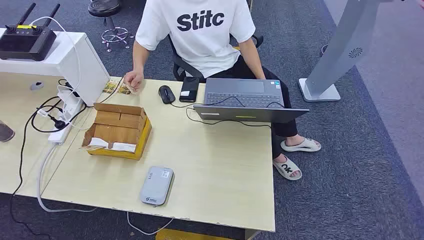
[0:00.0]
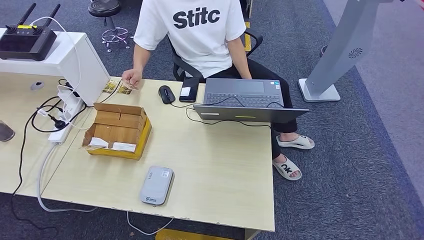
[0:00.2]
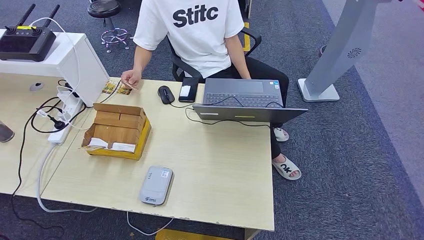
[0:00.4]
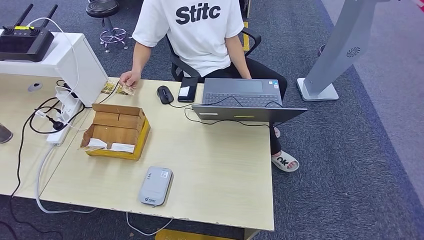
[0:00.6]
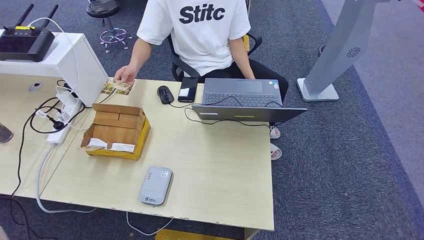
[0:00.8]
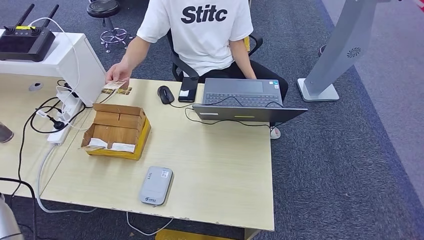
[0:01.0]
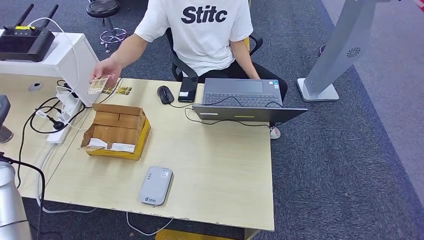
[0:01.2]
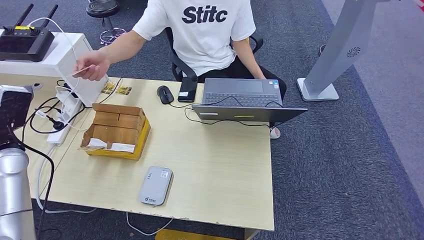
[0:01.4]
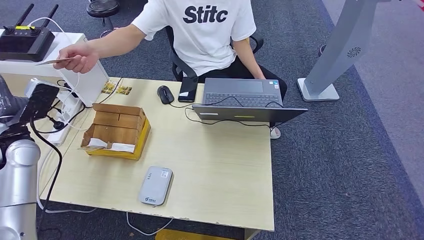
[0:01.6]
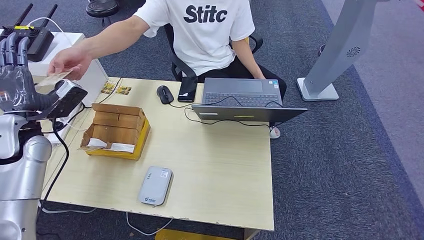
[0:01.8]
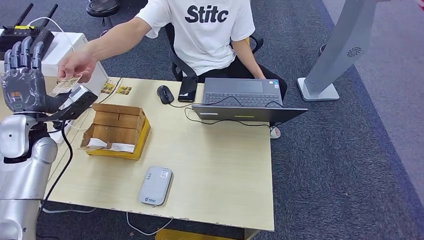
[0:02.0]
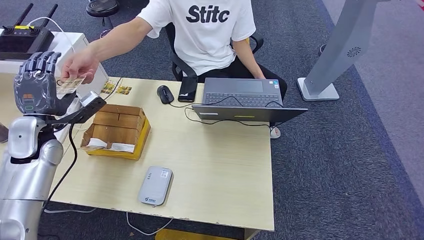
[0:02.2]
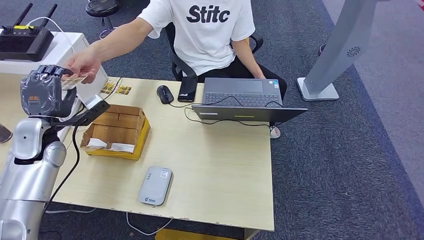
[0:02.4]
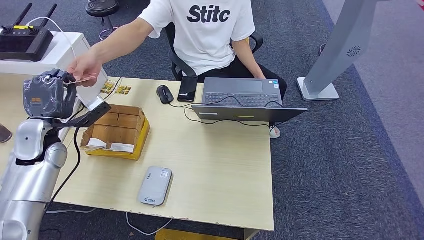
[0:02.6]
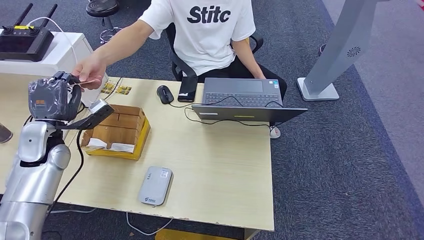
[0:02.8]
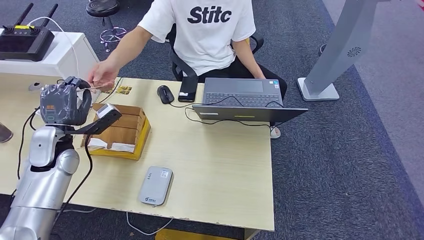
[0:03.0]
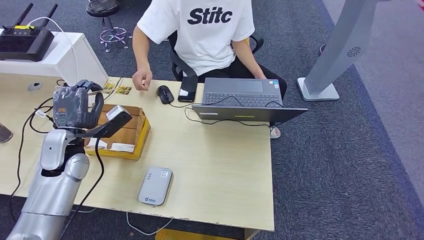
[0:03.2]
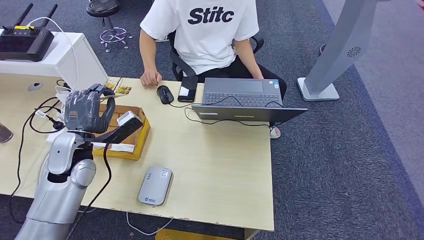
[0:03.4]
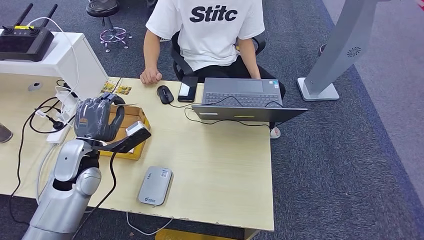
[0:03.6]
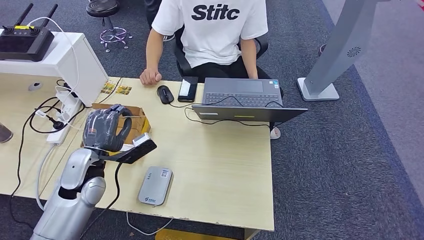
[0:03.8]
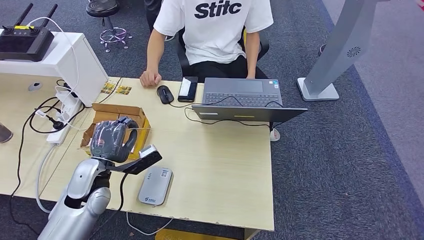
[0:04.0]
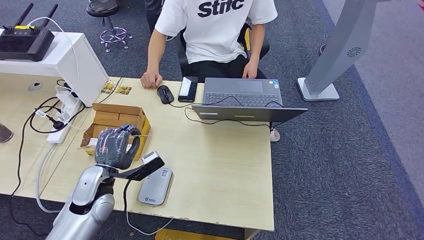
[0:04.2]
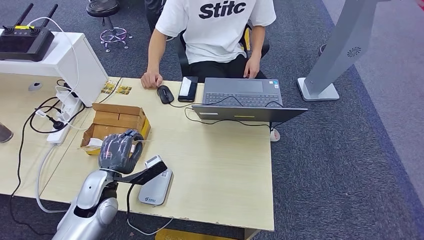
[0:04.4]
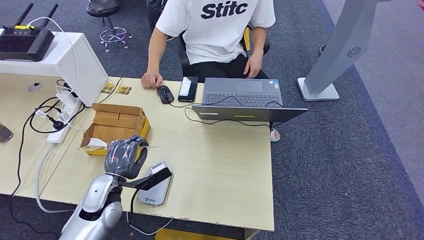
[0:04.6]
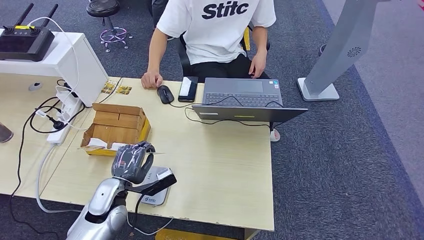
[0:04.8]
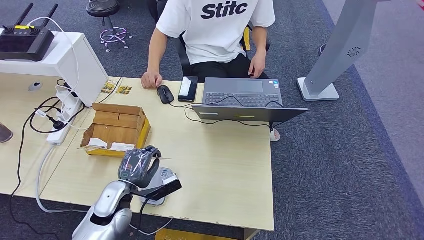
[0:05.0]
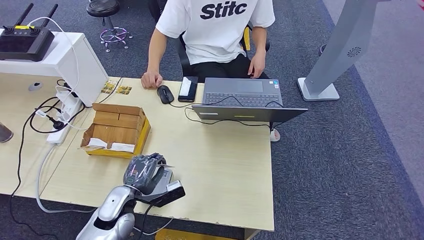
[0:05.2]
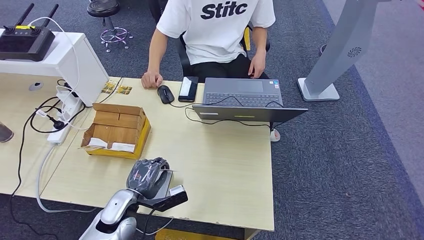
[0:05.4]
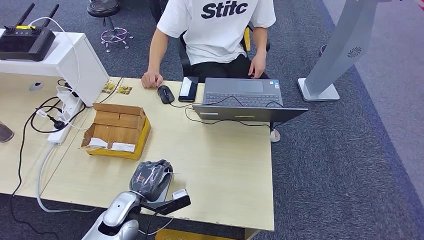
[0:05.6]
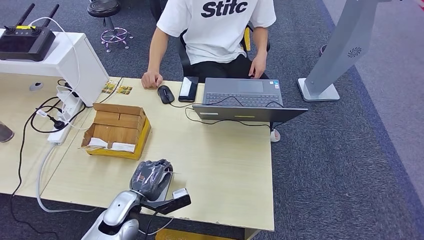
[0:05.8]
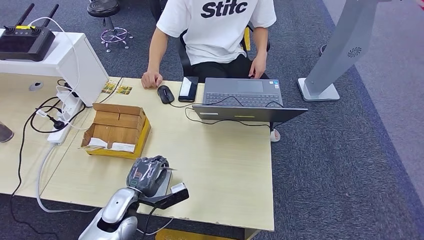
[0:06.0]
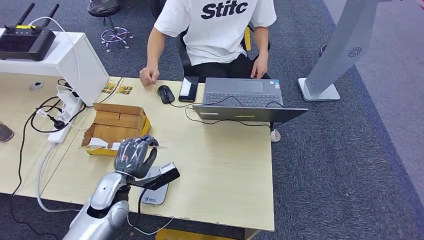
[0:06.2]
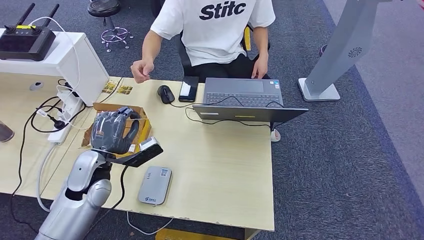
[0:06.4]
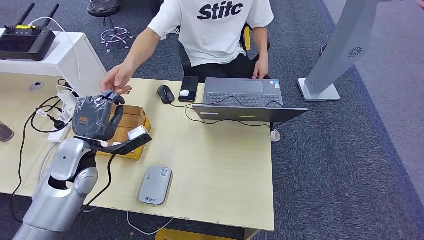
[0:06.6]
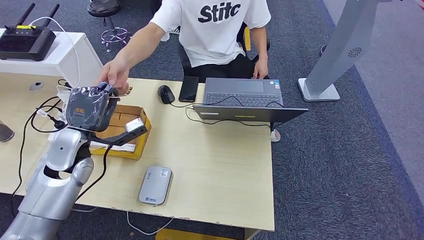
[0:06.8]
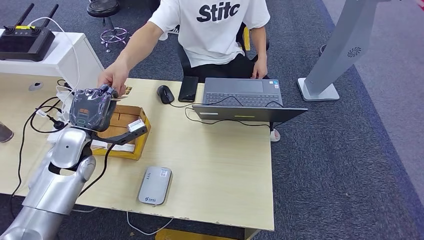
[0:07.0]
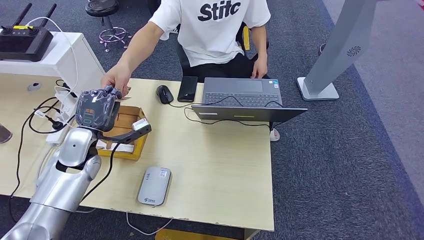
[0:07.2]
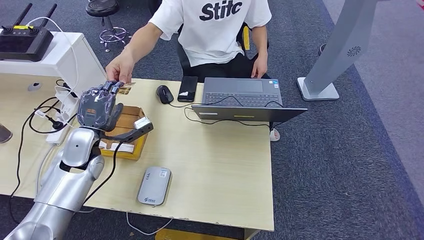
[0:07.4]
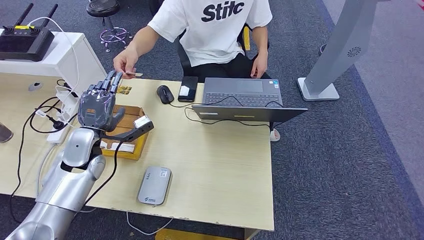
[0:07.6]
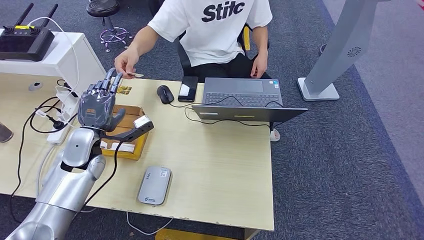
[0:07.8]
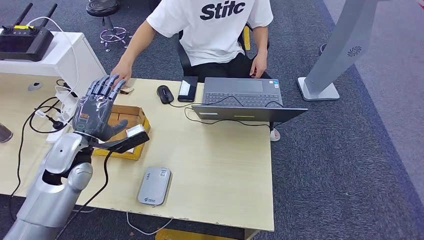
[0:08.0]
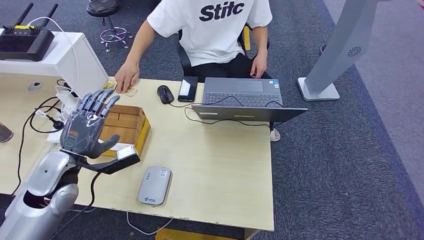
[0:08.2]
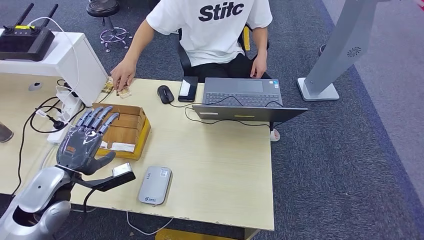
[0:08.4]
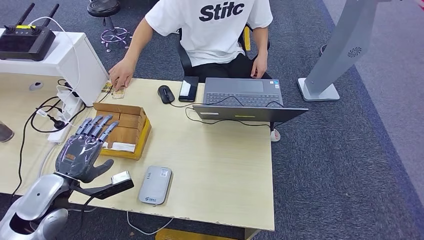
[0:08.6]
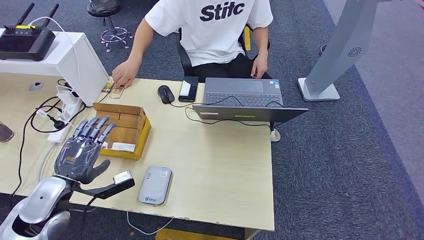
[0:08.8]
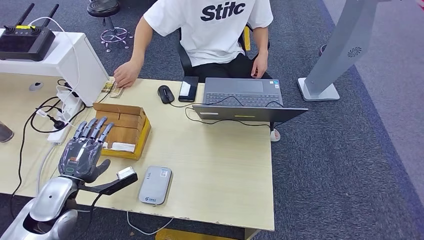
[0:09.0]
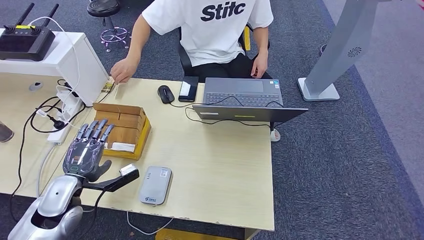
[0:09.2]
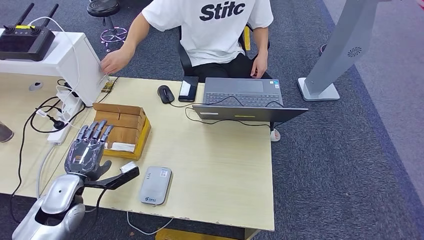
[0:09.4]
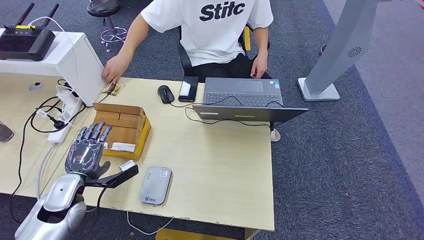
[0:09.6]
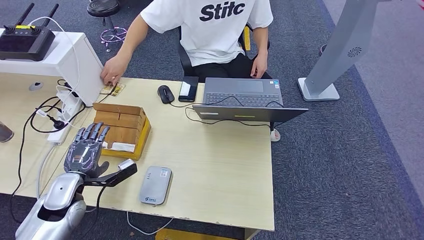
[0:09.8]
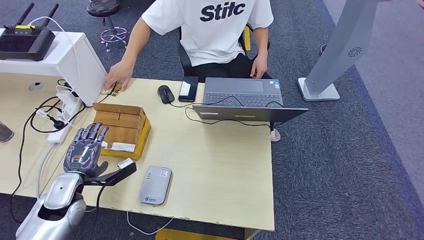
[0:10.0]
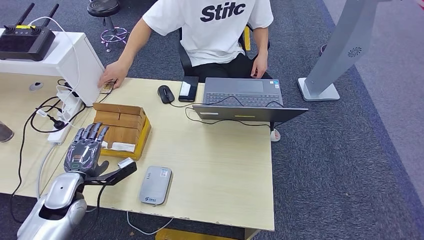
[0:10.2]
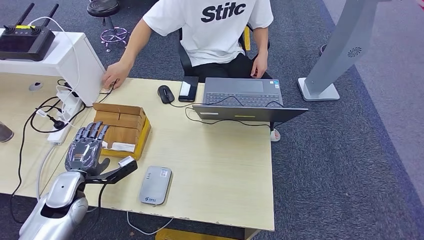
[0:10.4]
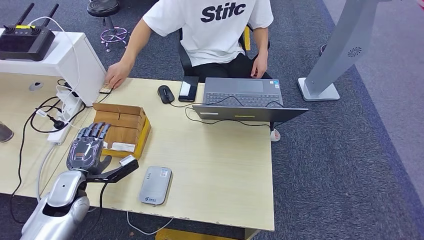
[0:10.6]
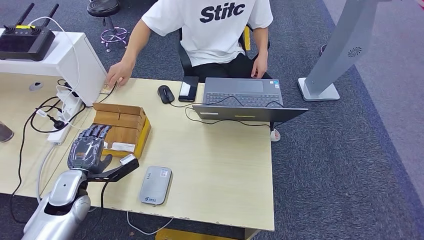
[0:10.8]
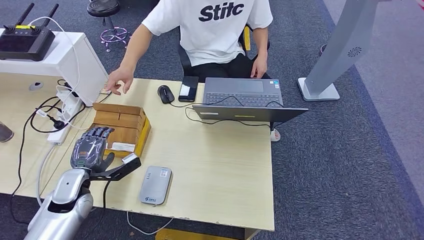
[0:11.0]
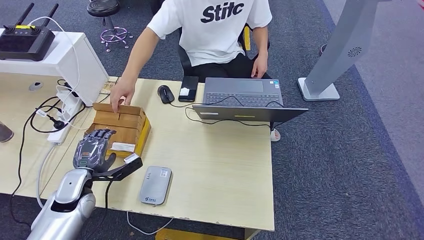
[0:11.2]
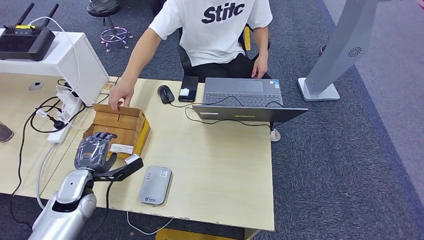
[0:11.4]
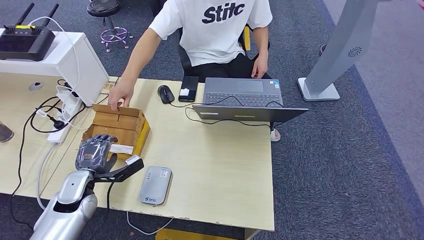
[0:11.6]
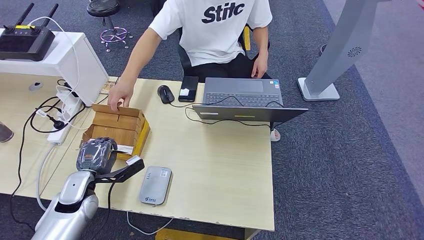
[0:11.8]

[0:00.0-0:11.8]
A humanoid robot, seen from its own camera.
Step, 0:00.0 to 0:03.6: Take the ID card from the person's hand.
Step, 0:03.8 to 0:06.0: Place the ID card on the card reader.
Step, 0:06.2 to 0:08.0: Hand the ID card to the person.
0:01.4 to 0:03.0: The left hand moves to the right, some 10 cm.
0:04.4 to 0:06.0: The left hand shifts roughly 5 cm downward.
0:06.0 to 0:07.4: The left hand shifts approximately 20 cm forward, upward and to the left.
0:07.4 to 0:08.8: The left hand moves backward, approximately 10 cm.
0:08.8 to 0:10.4: The left hand goes roughly 5 cm downward.
0:10.4 to 0:11.8: The hands make only small movements.

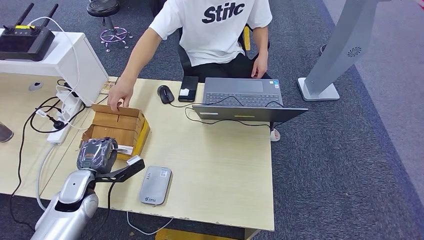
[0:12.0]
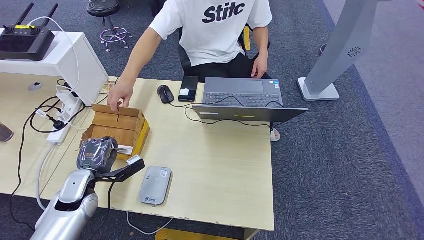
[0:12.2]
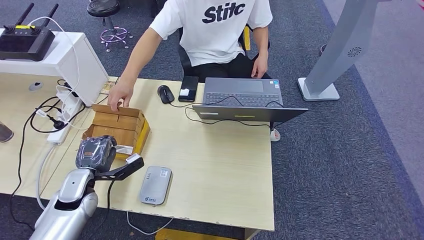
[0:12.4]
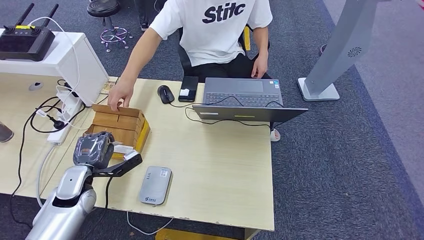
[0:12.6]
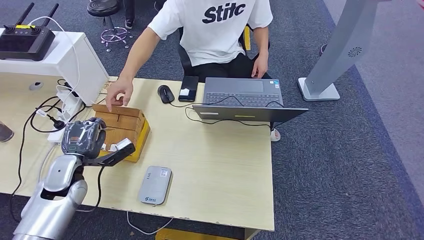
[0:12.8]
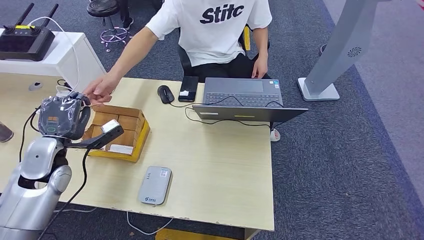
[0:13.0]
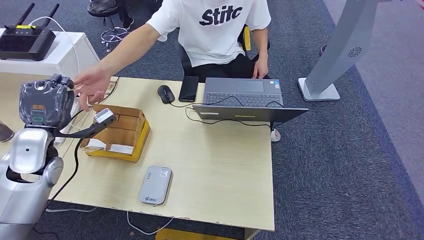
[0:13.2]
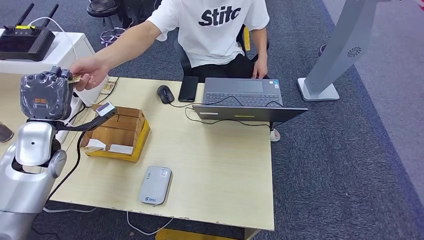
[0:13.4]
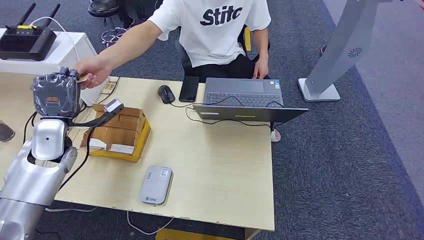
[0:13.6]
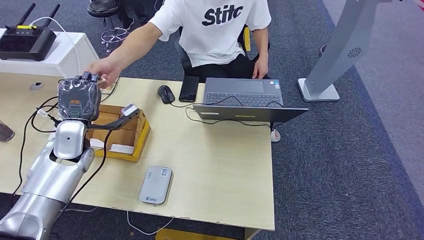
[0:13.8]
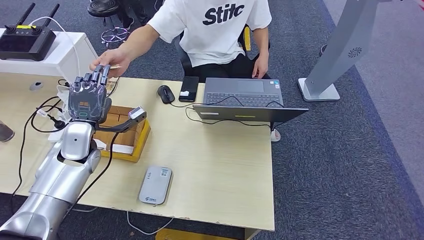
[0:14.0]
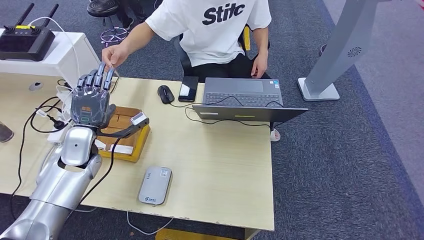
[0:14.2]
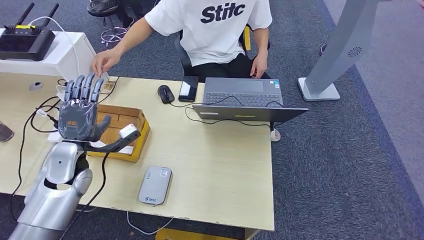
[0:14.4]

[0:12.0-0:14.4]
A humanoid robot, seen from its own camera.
Step, 0:13.0 to 0:14.4: Hand the room key to the person.
0:12.0 to 0:13.2: The left hand is displaced upward and forward by roughly 15 cm.
0:13.2 to 0:14.4: The left hand shifts approximately 5 cm downward.
